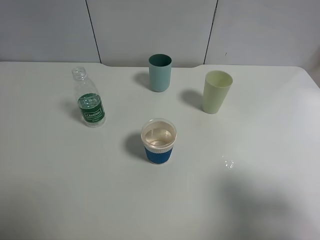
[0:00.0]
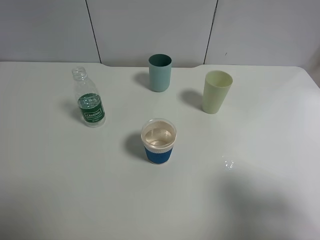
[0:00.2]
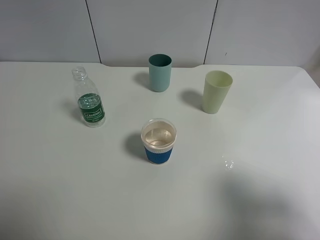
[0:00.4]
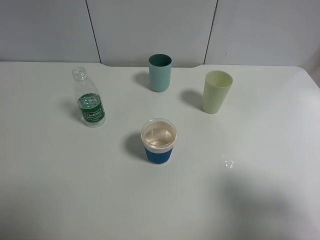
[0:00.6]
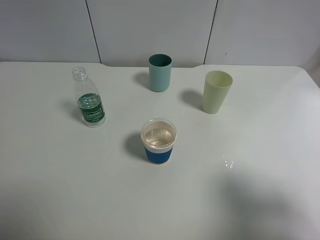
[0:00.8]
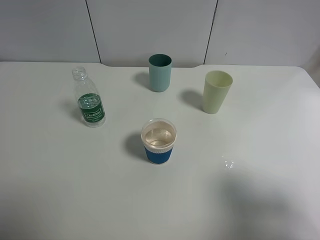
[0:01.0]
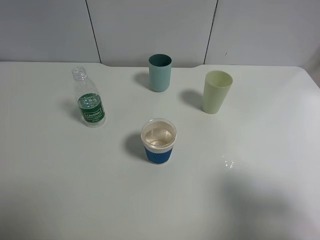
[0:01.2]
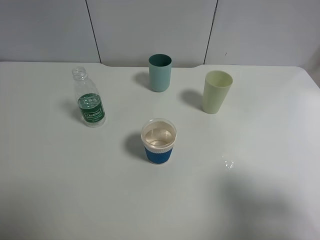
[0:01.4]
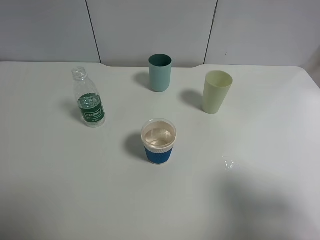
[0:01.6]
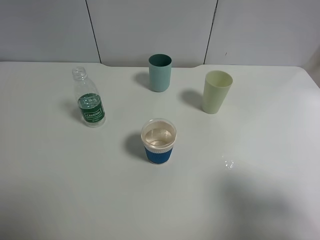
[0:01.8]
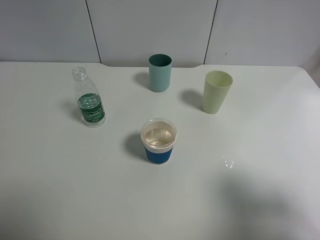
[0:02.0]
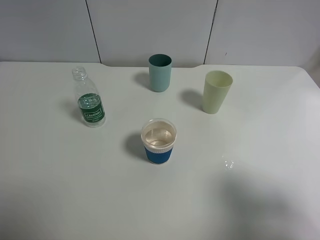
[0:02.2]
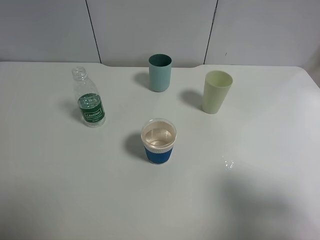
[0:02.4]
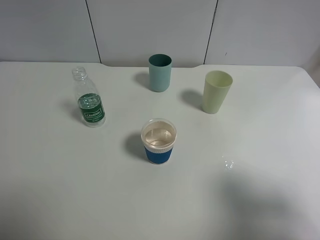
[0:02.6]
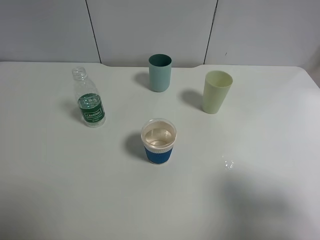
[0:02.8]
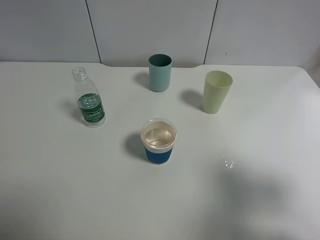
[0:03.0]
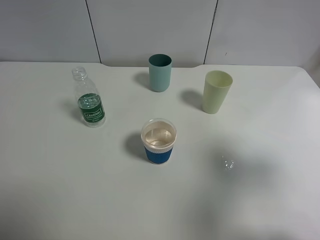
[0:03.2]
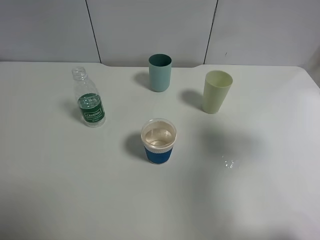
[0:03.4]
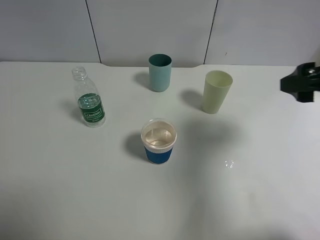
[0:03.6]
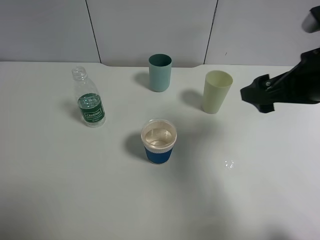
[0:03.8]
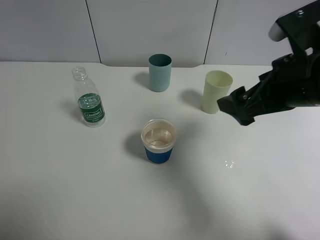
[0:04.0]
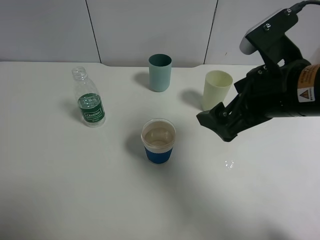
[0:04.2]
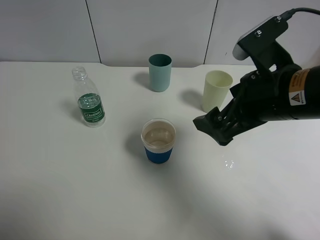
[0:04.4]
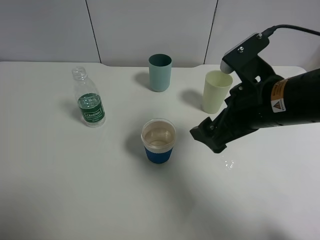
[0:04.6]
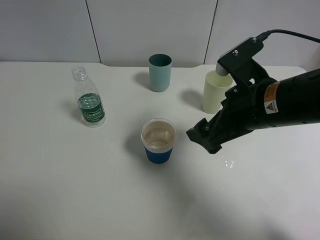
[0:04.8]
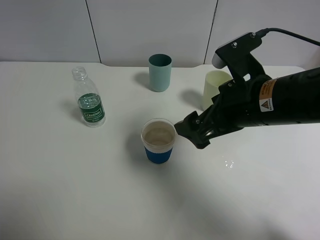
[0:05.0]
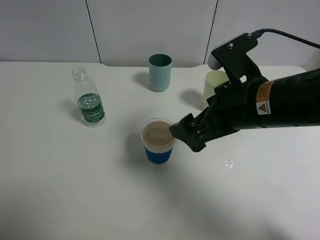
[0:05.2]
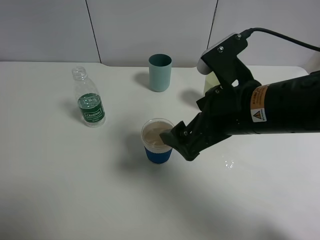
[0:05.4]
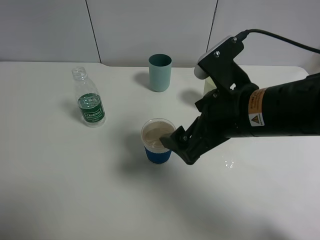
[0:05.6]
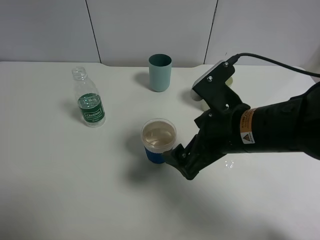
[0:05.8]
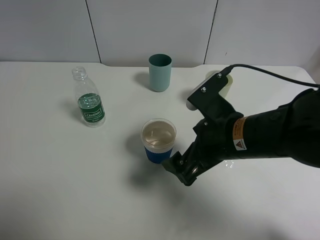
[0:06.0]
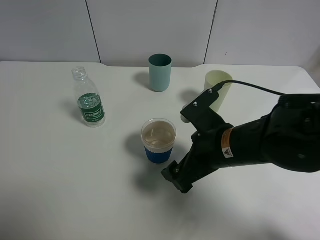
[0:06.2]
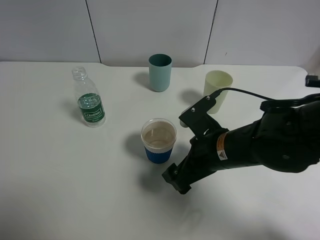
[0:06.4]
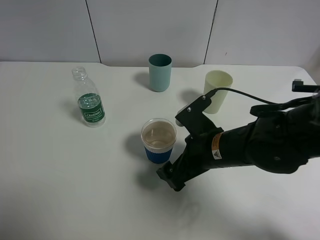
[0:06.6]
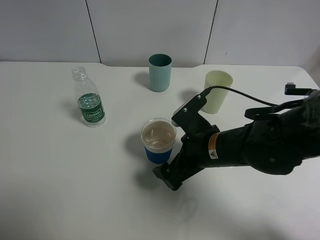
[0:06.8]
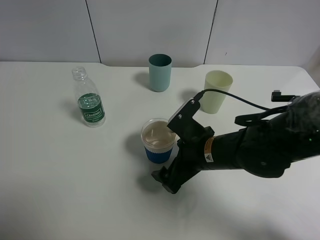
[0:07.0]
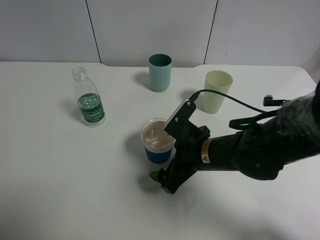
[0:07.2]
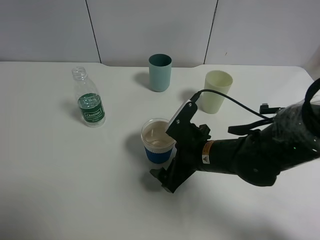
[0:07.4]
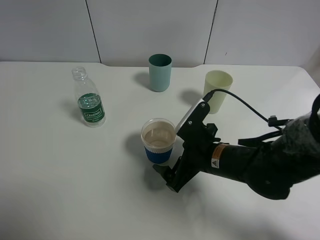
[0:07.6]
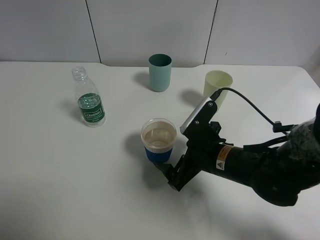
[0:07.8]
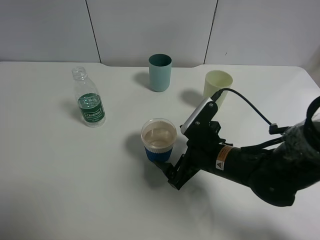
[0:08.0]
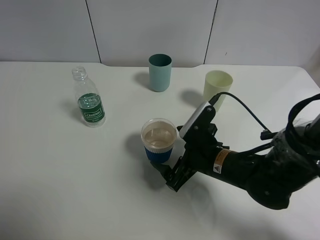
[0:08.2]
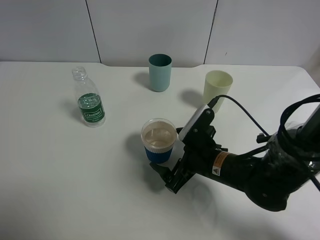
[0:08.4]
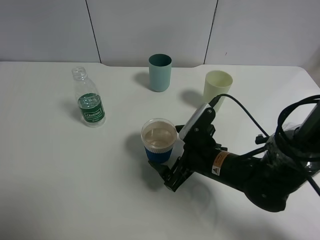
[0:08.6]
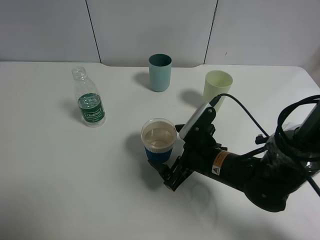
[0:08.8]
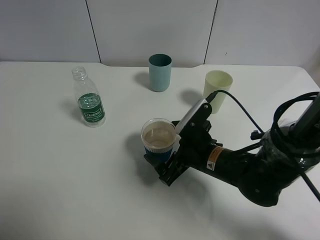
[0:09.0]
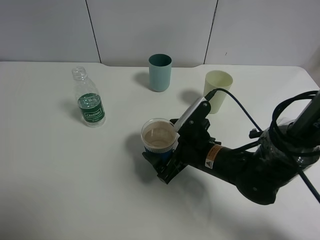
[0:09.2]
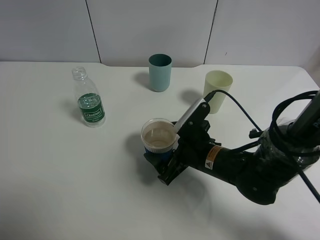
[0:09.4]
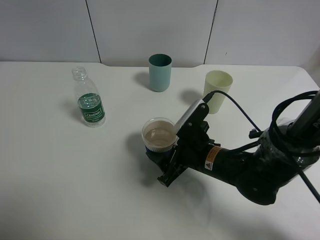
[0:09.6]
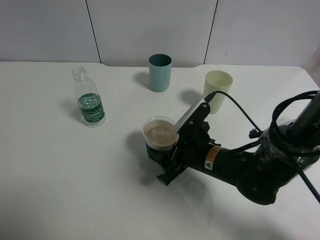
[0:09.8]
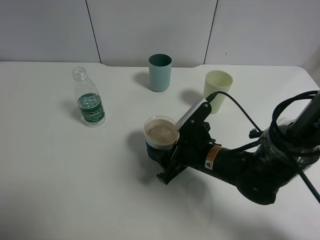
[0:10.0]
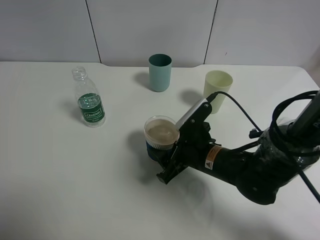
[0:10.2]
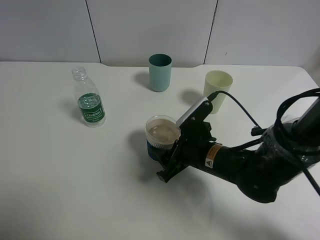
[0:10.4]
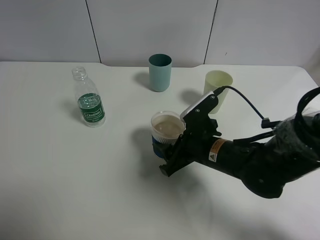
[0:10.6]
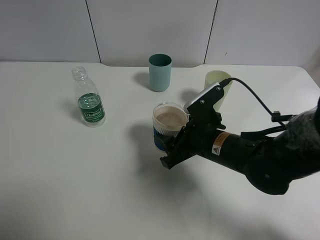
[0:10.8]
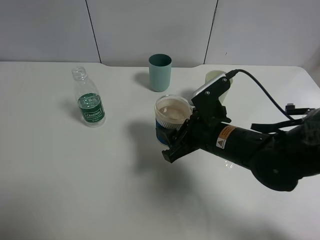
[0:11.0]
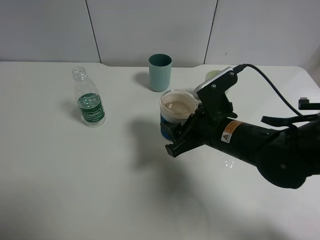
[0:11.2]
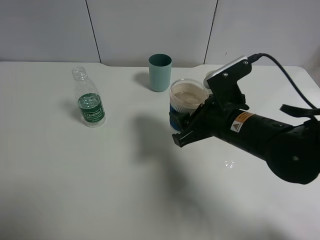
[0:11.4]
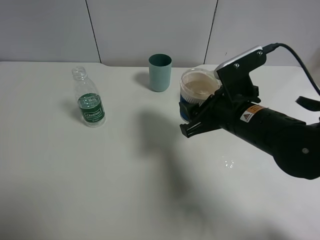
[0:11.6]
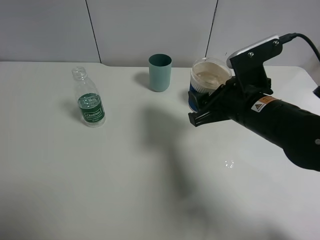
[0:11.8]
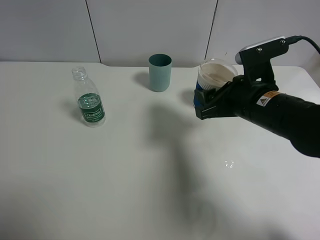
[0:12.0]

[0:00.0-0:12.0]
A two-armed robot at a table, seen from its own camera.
Task of the whole recording: use a clamp to hold the bottle of the drink, pour the beverage into a random cup, then clamp the cup containing the drink and pour the drink into another random cup.
Step, 0:00.0 to 0:09.8: Pick up the paper cup with right gripper.
0:01.6 to 0:03.0: The two grippers keep their place.
0:03.0 to 0:04.4: The right gripper is displaced to the left and forward by some 20 cm.
0:04.4 to 0:06.0: The right gripper moves downward, about 5 cm.
0:06.0 to 0:07.6: The right gripper shifts approximately 10 cm downward.
0:07.6 to 0:09.0: The grippers stay close to where they were, moving slightly.
0:09.0 to 0:10.4: The right gripper closes up.
0:10.4 to 0:12.0: The right gripper shifts approximately 15 cm upward and to the right.

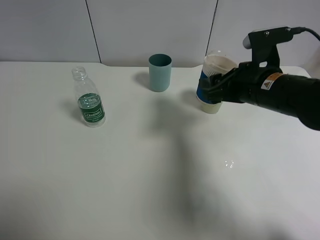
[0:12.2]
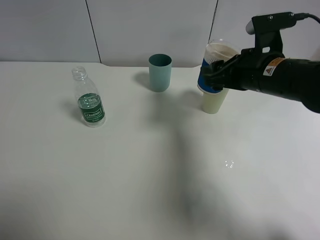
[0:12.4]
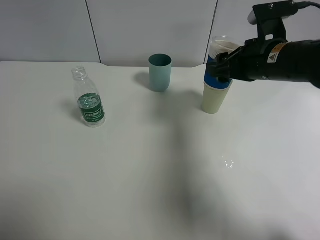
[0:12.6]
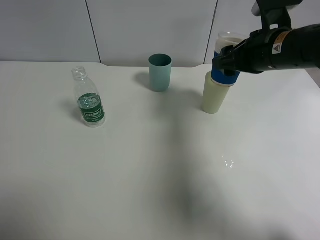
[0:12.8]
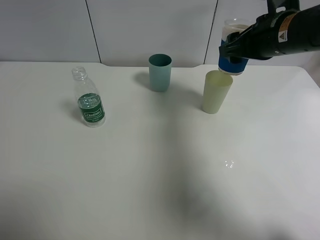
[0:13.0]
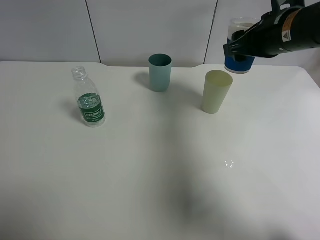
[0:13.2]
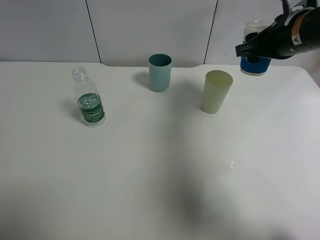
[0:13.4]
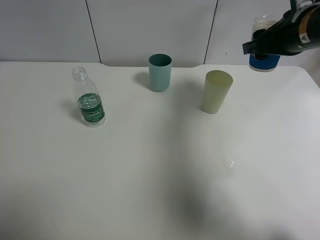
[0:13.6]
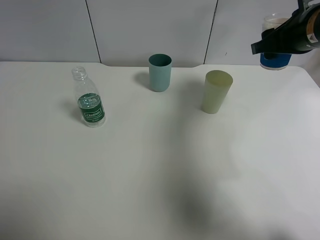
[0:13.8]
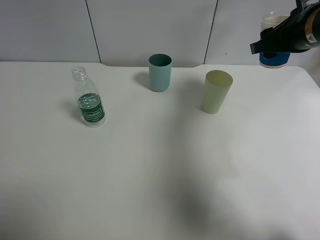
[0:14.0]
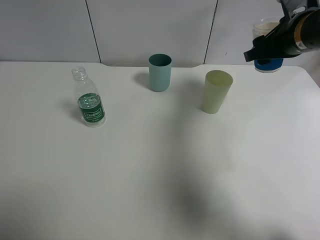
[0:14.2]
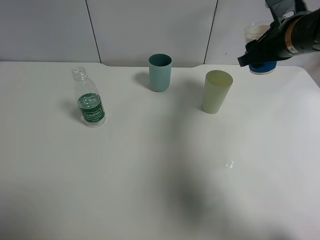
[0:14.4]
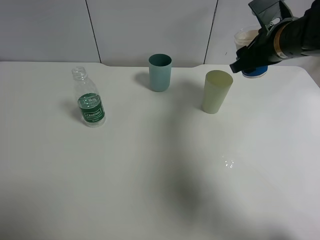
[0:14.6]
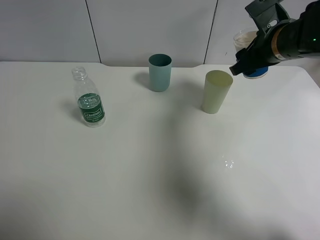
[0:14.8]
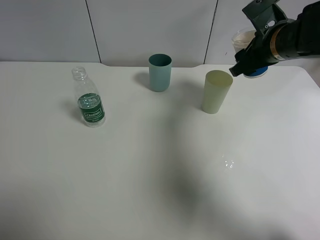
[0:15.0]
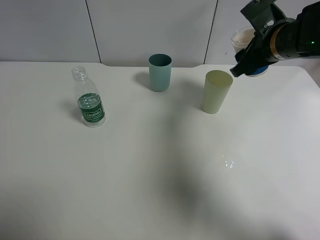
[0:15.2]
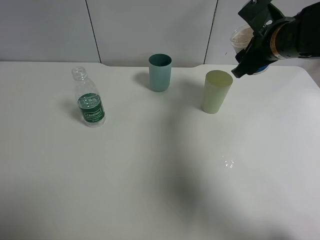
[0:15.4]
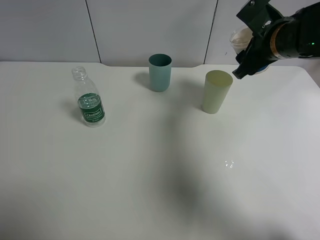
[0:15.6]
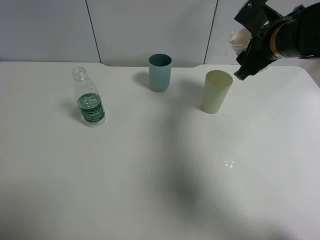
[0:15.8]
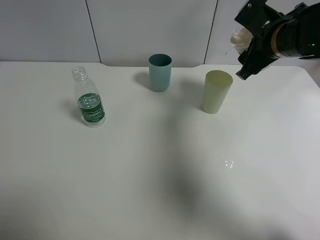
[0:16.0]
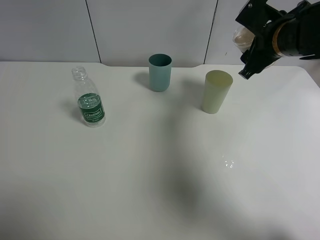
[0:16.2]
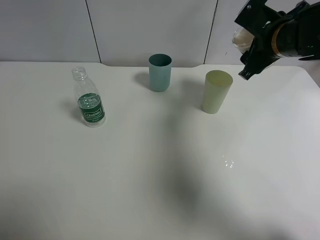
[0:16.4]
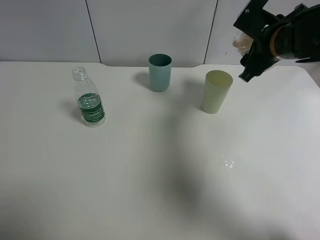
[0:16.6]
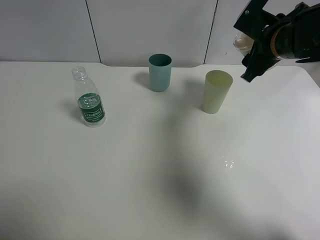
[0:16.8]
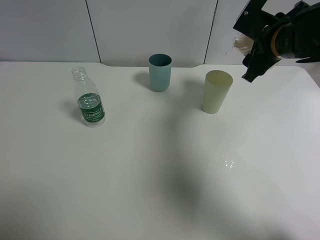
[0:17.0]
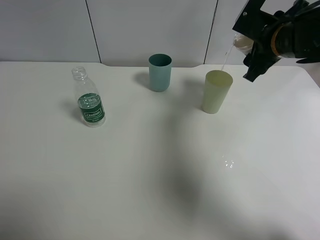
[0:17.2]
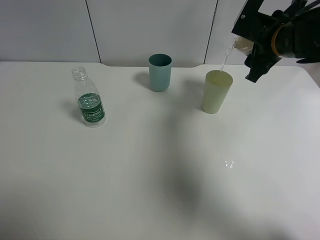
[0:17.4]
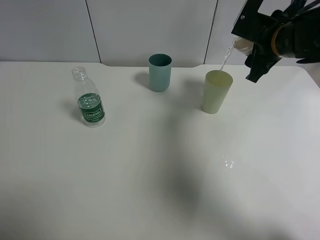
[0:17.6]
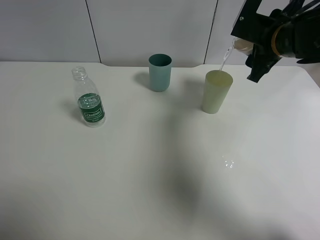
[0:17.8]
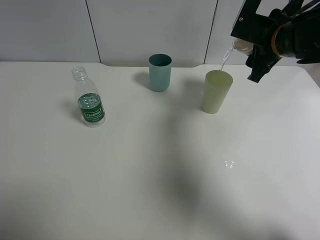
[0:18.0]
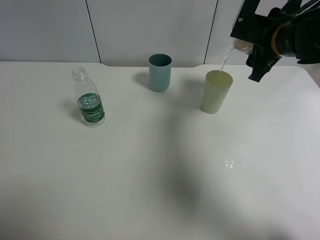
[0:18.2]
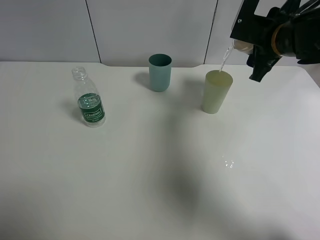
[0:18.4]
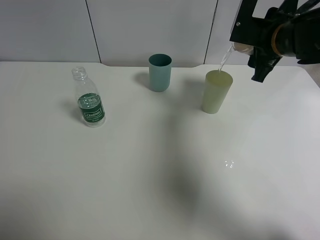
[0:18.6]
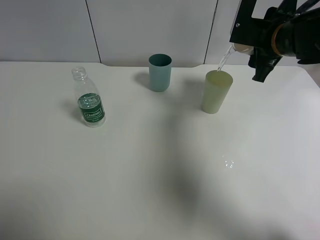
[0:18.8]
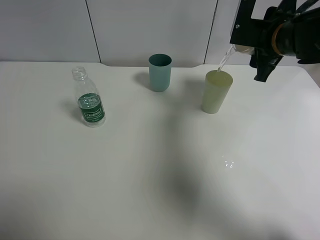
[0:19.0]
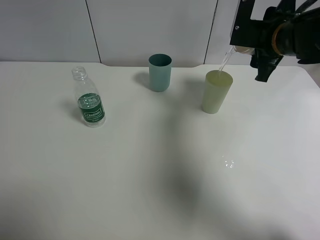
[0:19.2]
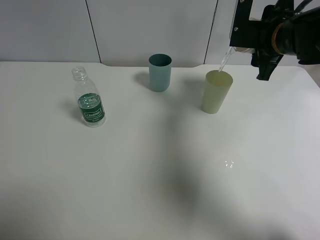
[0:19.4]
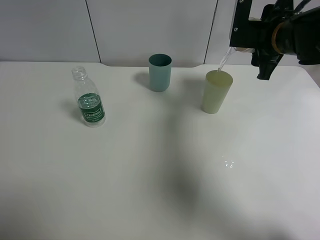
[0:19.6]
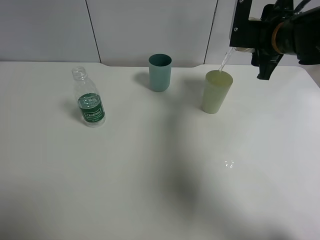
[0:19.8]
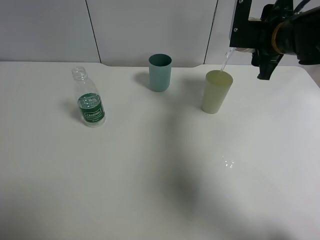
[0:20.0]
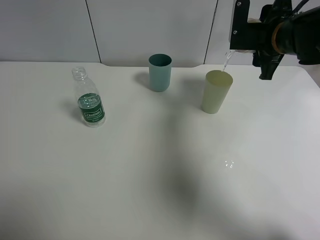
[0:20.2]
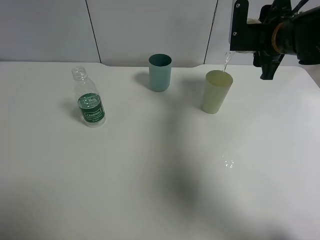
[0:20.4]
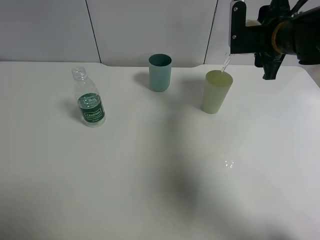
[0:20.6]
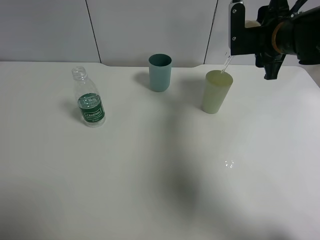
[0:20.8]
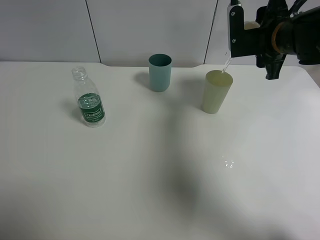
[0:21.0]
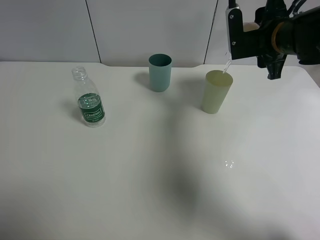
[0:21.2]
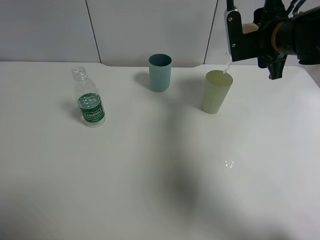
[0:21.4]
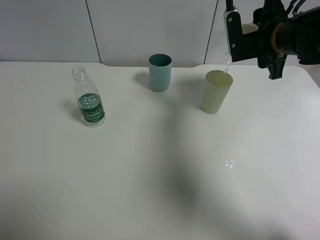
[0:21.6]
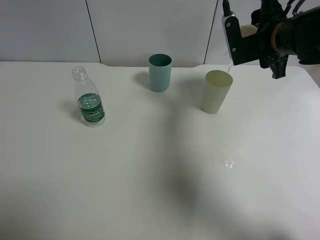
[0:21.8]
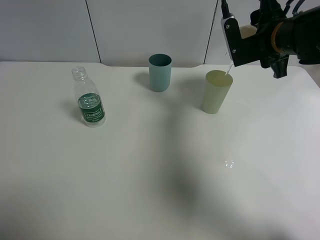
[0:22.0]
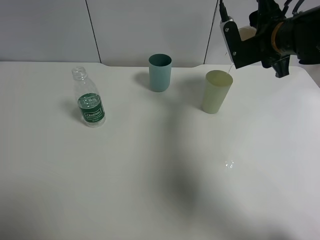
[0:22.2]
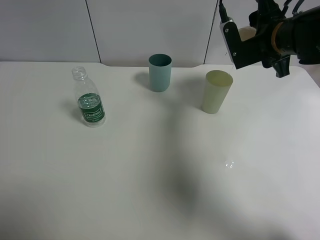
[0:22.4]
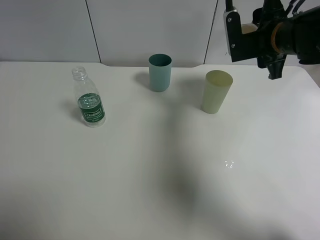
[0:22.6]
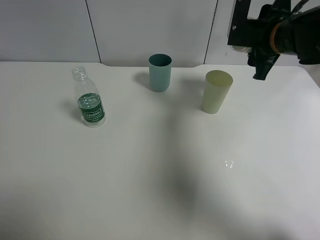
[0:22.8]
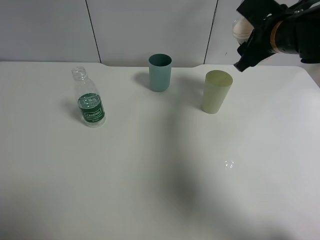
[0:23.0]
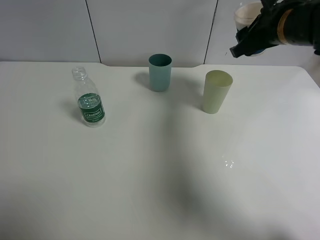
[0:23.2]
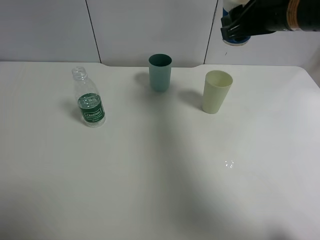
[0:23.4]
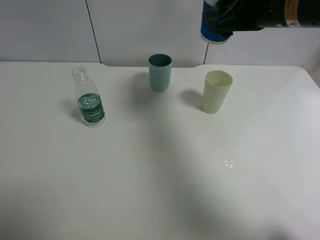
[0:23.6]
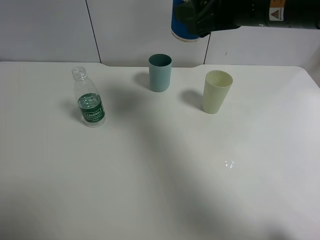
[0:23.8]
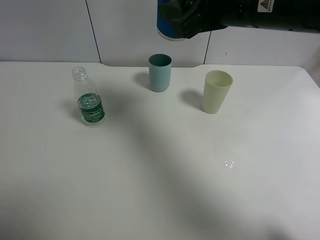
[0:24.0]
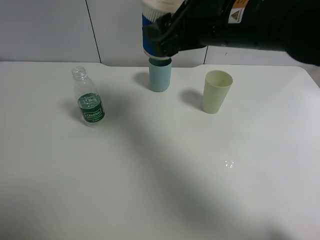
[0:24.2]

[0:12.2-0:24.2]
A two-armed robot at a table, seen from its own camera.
Task of the whole recording: use a clamp to hold the bottle of the drink, pour the beverage into a random cup, then clamp the cup containing the drink and pour the drink into another random cup.
Step, 0:12.2 to 0:22.6: Pour water into the green plastic cup with right gripper.
0:12.2 to 0:13.8: The right gripper moves upward, to the right and forward, some 10 cm.
0:15.2 to 0:16.6: The grippers move only a little.
0:16.6 to 0:18.2: There are only small adjustments of the grippers.
0:18.2 to 0:19.8: There are only small adjustments of the grippers.
0:19.8 to 0:21.2: There are only small adjustments of the grippers.
0:21.2 to 0:22.6: There are only small adjustments of the grippers.
0:22.6 to 0:24.2: The right gripper goes about 15 cm to the left, backward and upward.
